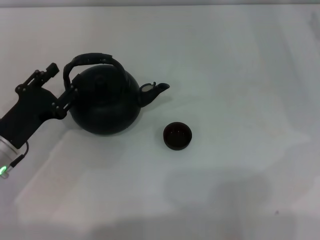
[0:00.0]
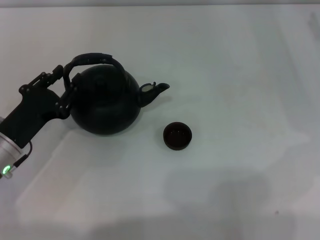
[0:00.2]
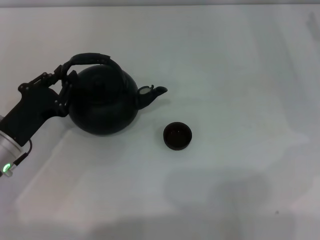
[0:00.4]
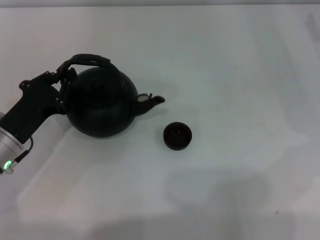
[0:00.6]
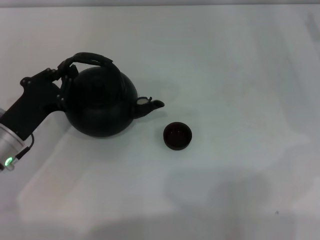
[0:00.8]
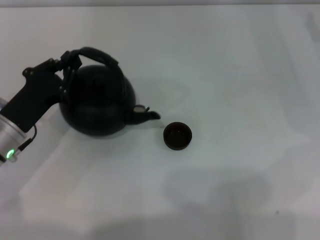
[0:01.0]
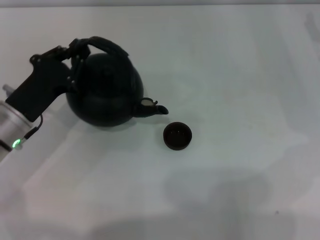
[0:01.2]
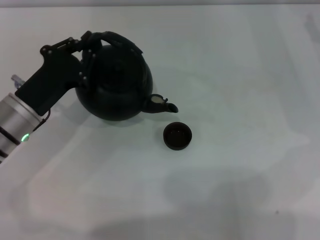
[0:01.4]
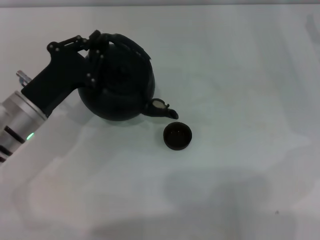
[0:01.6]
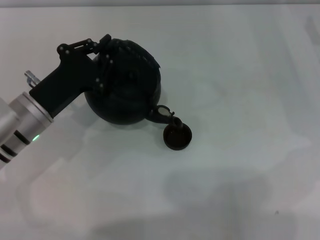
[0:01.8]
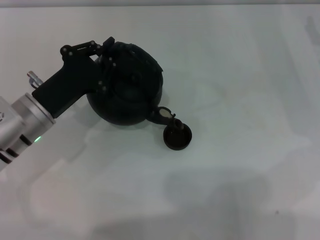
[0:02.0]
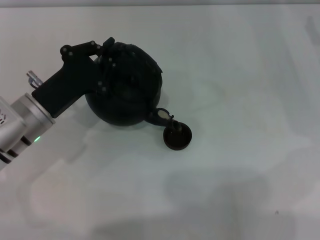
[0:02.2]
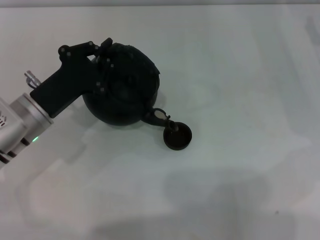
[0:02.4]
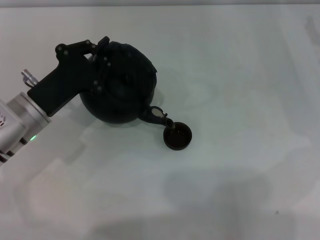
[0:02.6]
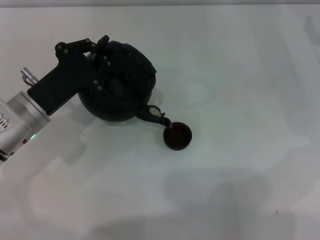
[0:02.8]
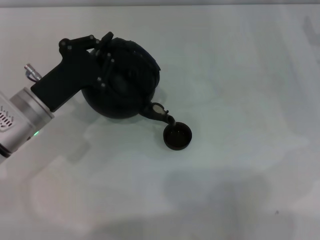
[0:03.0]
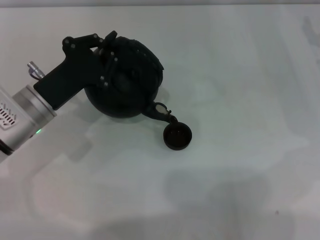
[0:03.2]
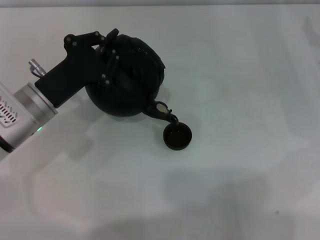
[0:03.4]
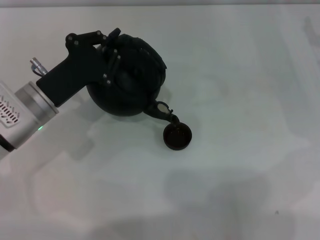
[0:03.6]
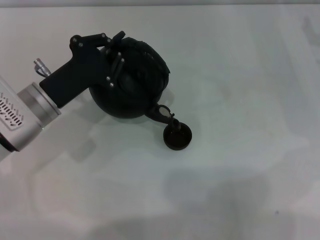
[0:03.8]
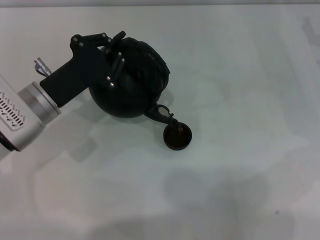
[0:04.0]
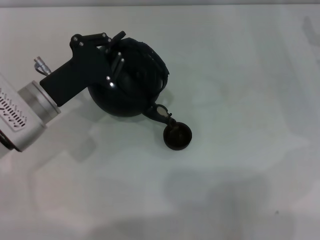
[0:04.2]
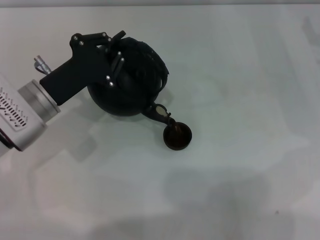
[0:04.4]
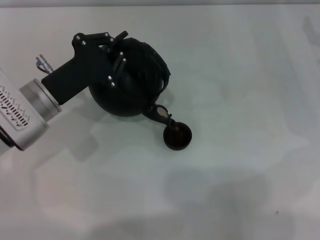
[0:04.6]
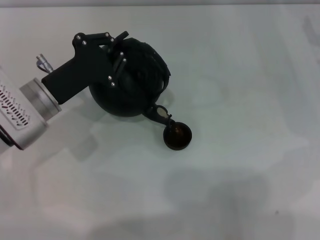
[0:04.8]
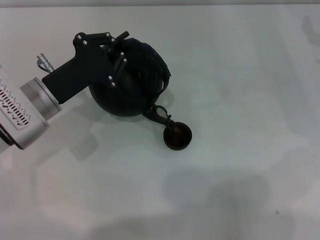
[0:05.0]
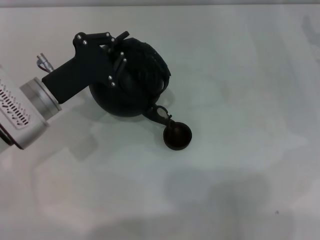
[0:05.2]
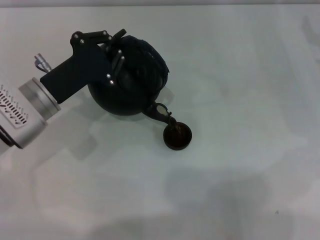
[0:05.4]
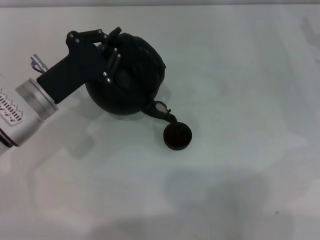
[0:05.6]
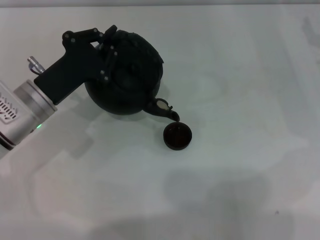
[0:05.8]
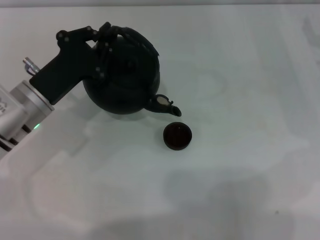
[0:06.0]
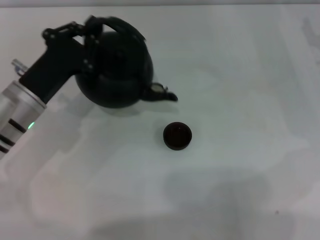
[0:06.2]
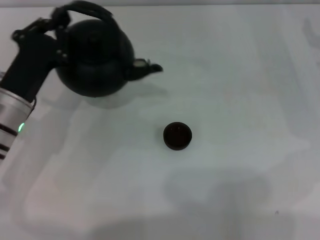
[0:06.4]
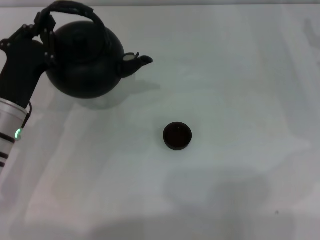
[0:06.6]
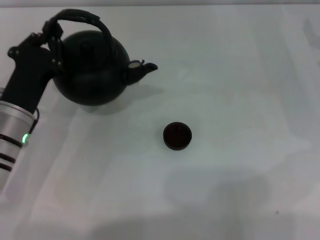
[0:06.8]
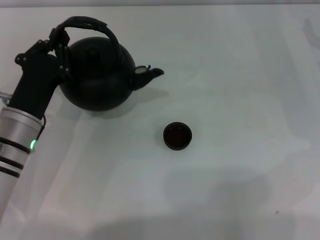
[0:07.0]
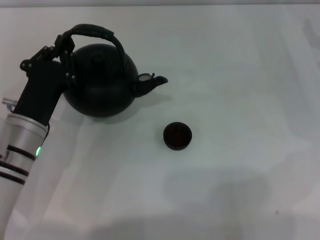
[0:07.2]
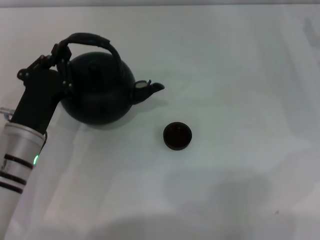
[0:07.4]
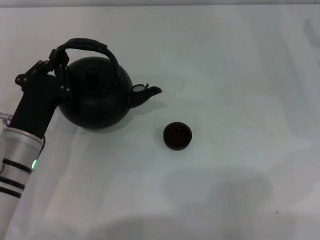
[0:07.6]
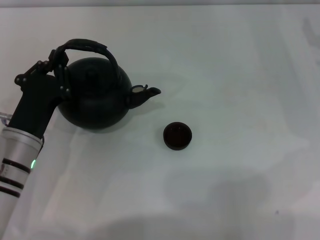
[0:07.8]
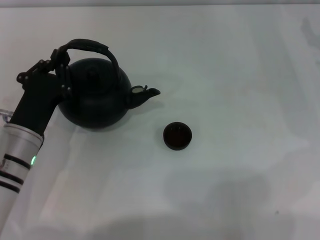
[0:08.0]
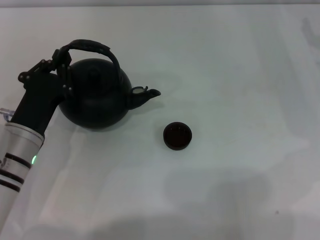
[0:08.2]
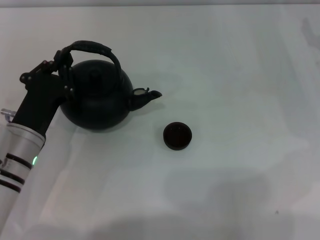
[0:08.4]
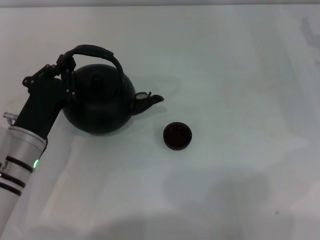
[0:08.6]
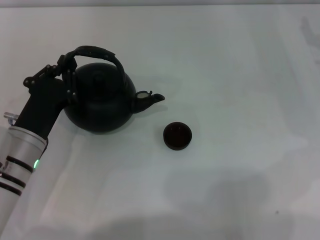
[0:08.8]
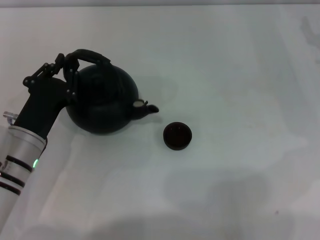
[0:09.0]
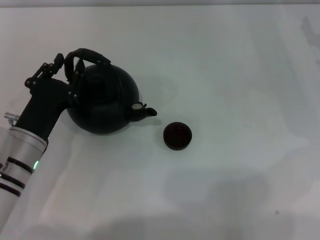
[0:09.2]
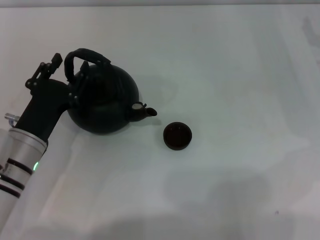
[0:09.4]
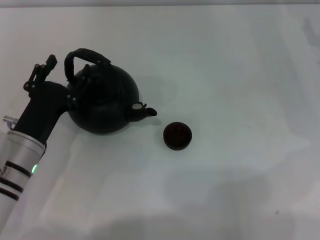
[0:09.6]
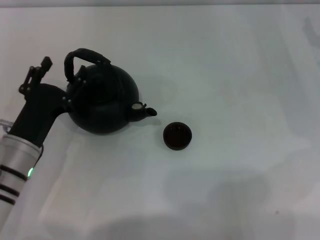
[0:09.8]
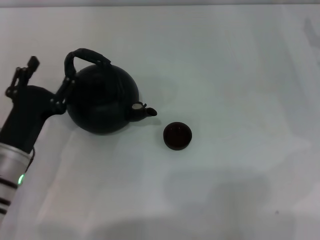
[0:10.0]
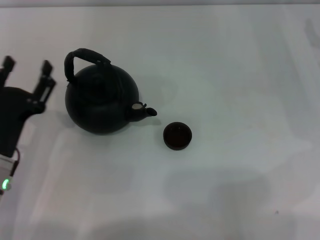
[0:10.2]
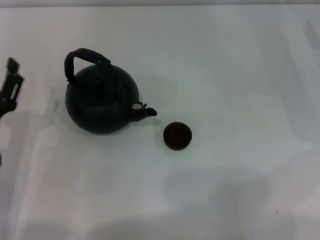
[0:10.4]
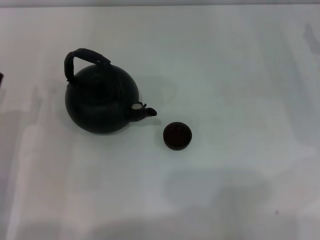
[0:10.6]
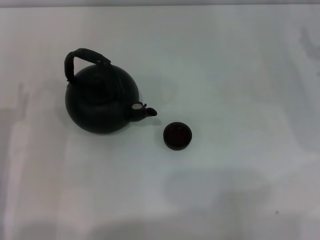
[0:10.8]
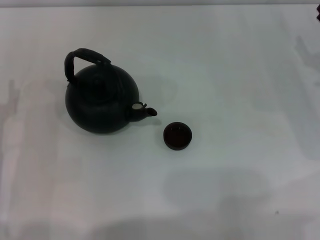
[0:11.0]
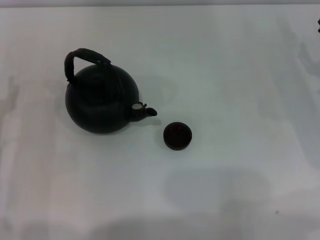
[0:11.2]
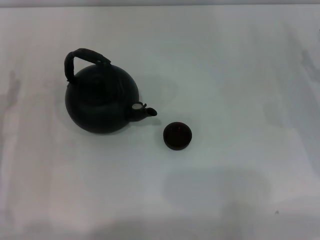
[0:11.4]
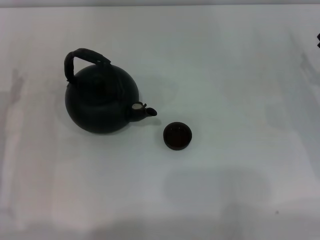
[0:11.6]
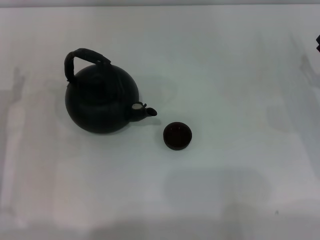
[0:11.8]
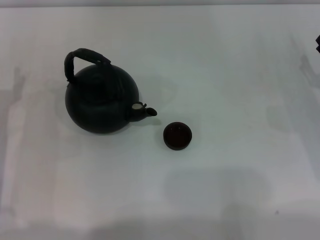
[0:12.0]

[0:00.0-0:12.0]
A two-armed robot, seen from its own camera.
Task of the whole recording: Grasp the handle of the teapot with one hand and pour tea into the teacup.
Step, 0:01.4 to 0:06.0: Pour tea into the teacup with the left gripper.
Step, 0:06.2 to 0:10.0: Put down the teapot with the left gripper.
0:00.0 to 0:01.6: The left gripper shifts by roughly 5 cm, and closes.
0:01.6 to 0:03.0: The grippers make only small movements.
0:03.0 to 0:06.0: The grippers stay close to where they were, moving slightly.
0:06.0 to 0:07.6: The left gripper heads backward, covering approximately 5 cm.
0:07.6 to 0:09.0: Both grippers stay about where they are.
0:09.0 to 0:10.4: The left gripper ends up approximately 5 cm from where it was, and opens.
0:10.4 to 0:12.0: The left gripper is displaced forward by approximately 5 cm.

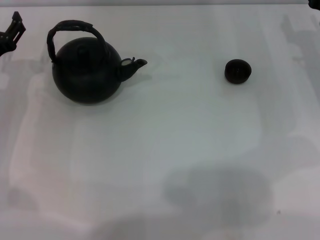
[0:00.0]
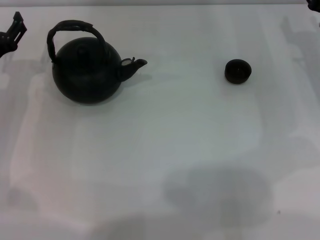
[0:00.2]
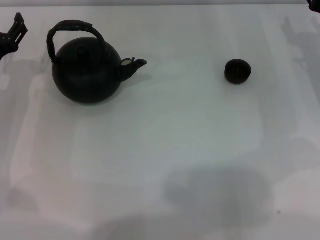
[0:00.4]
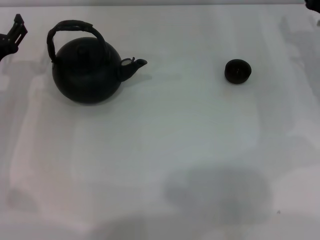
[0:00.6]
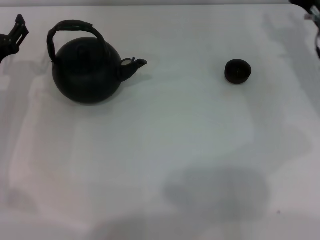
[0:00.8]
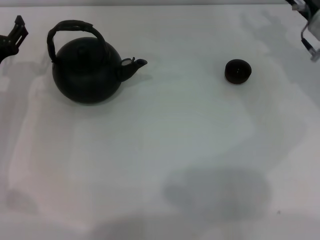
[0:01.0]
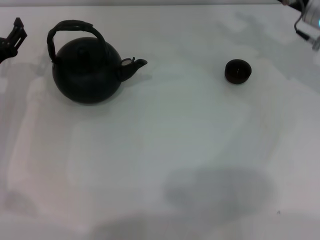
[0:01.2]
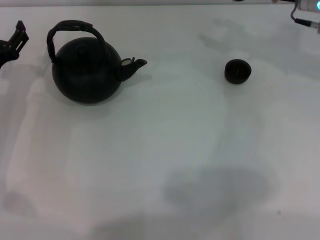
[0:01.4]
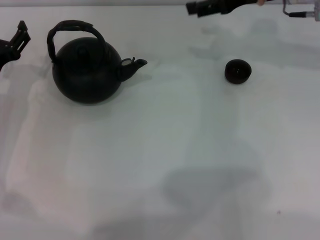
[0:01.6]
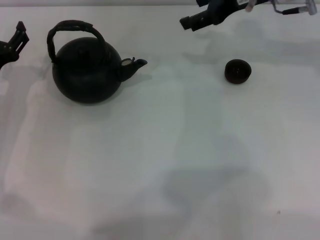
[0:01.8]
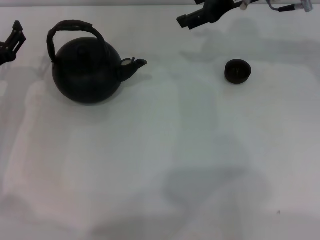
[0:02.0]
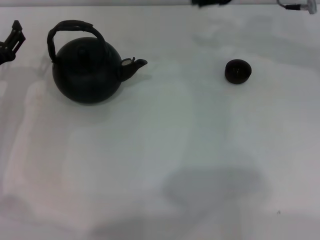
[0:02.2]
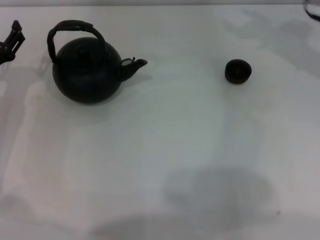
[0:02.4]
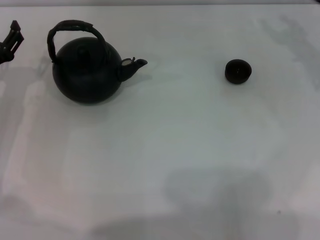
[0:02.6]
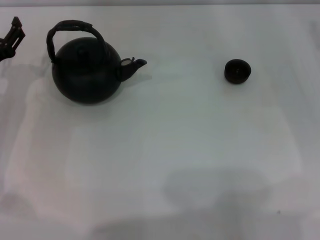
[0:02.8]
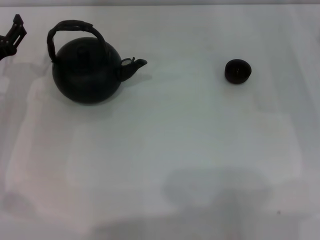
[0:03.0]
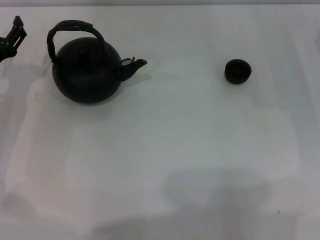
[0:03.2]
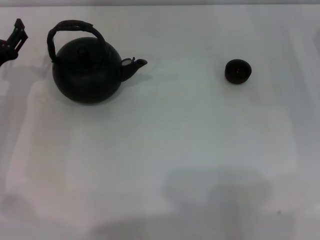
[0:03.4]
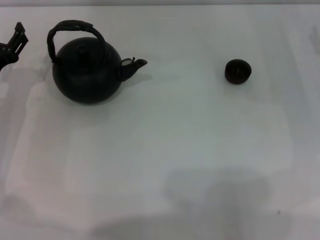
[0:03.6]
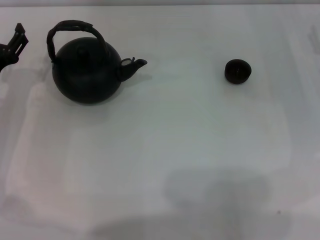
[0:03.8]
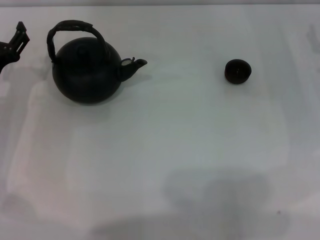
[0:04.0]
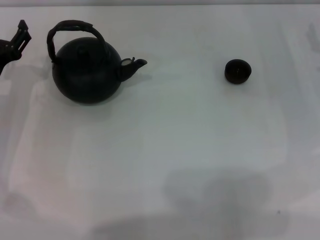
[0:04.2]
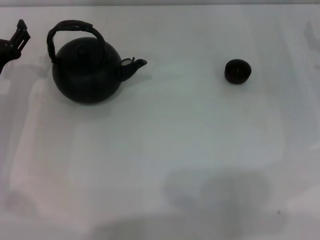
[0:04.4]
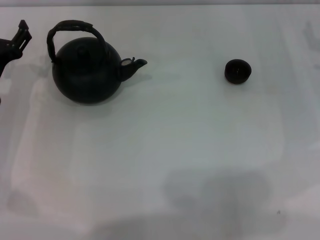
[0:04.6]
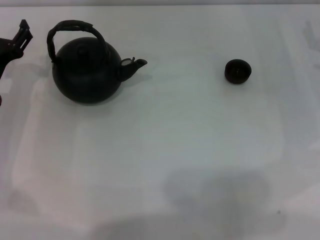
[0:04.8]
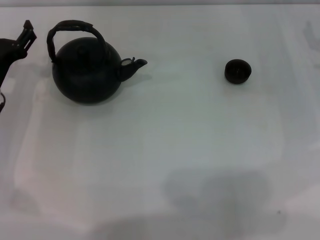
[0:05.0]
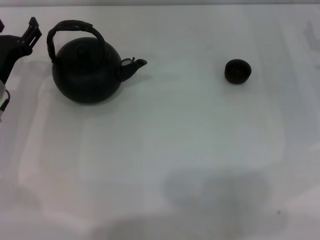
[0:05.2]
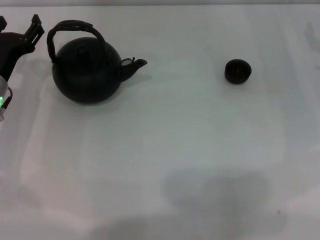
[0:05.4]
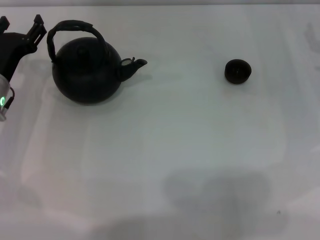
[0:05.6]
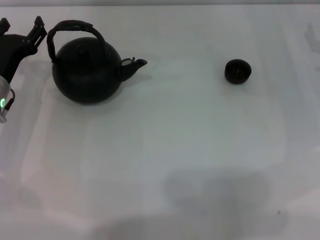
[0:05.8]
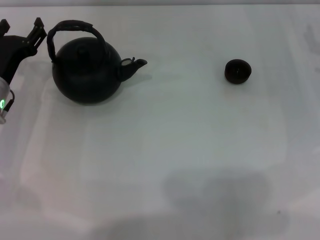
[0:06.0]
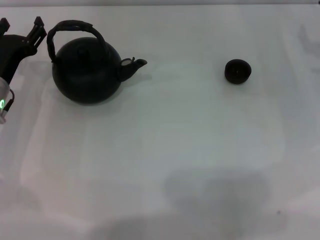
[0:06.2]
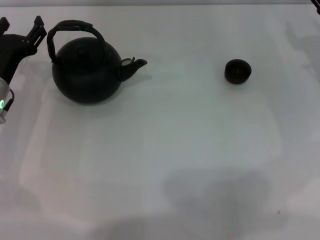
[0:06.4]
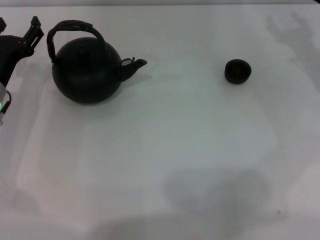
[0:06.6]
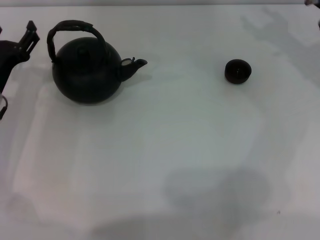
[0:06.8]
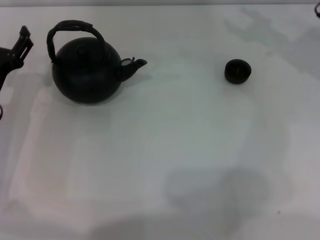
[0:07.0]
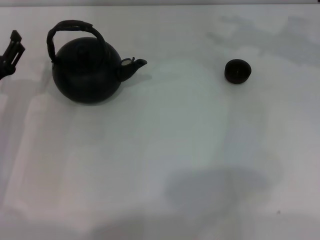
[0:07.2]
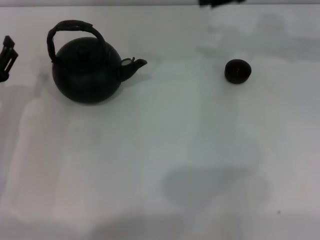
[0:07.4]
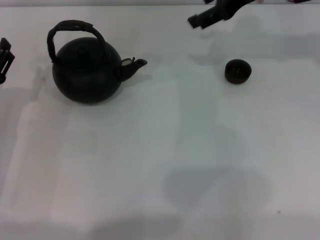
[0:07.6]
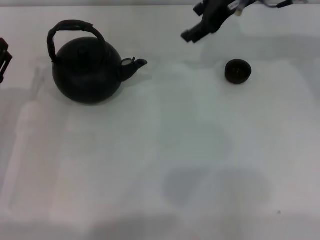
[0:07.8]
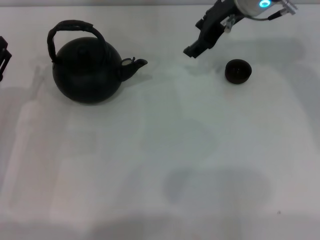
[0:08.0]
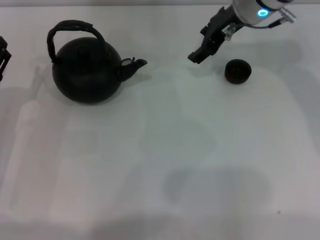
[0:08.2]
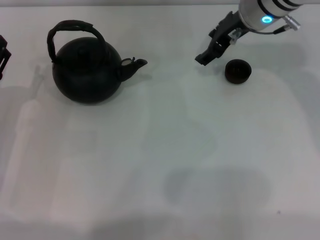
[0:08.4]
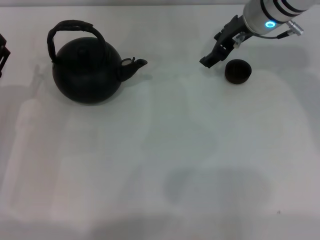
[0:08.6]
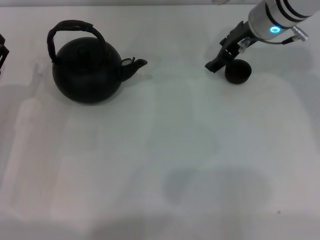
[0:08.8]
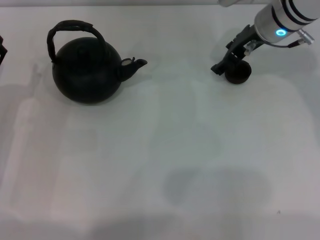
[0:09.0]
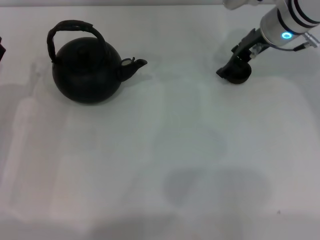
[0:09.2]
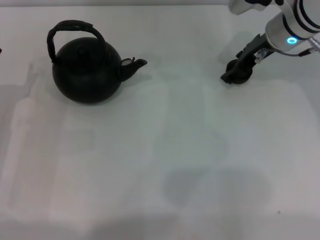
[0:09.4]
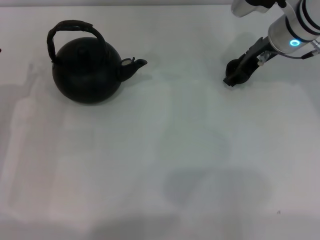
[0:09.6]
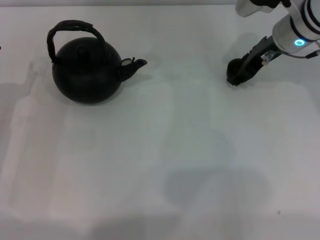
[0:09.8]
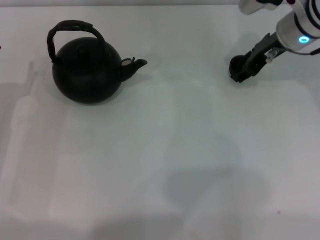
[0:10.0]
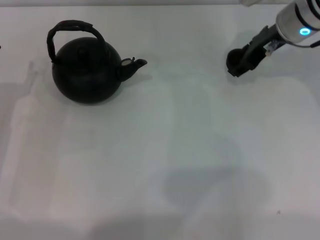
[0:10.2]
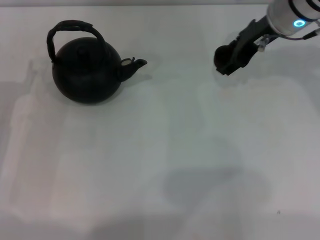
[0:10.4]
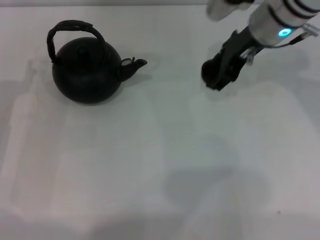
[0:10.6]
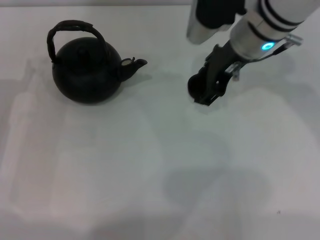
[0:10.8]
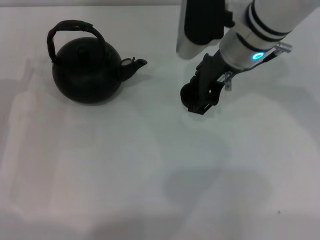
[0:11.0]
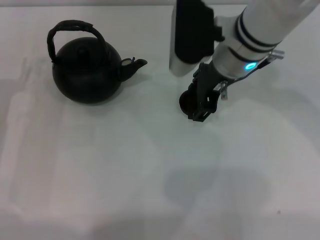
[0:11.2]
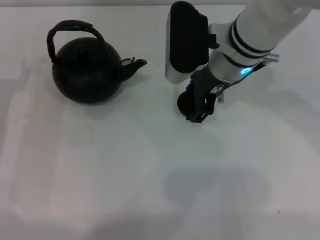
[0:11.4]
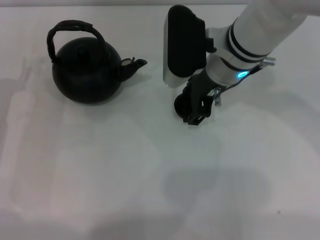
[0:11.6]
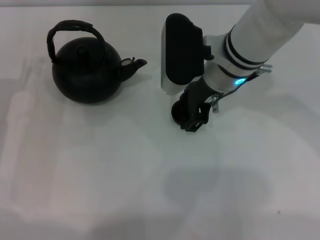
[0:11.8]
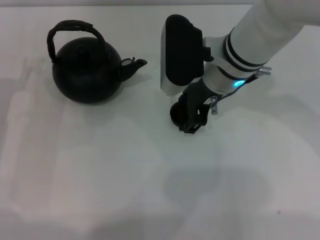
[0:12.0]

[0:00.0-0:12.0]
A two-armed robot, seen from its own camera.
Task of the whole recording: Grasp the handle of the teapot with one hand and pour tea into the teacup.
Step, 0:00.0 to 0:10.0: Pick up the teacup with the right gripper.
0:00.0 to 0:01.6: The right gripper heads upward, to the left and forward, covering approximately 15 cm.
0:01.6 to 0:03.0: The right gripper moves to the right, downward and backward, some 20 cm.
0:04.4 to 0:06.0: The grippers make only small movements.
0:06.0 to 0:07.6: The left gripper heads backward, covering some 5 cm. Meanwhile the right gripper goes about 25 cm upward, to the left and forward.
0:07.6 to 0:09.0: The right gripper is displaced downward by roughly 10 cm.
0:09.0 to 0:10.4: The grippers move only a little.
0:10.4 to 0:12.0: The right gripper moves to the left and backward, approximately 10 cm.
